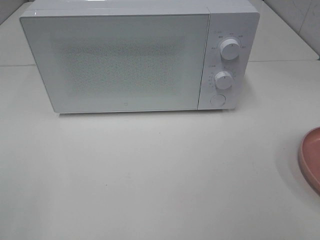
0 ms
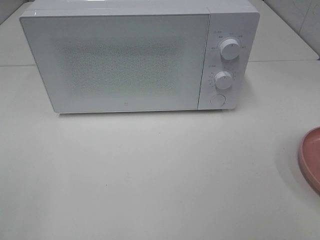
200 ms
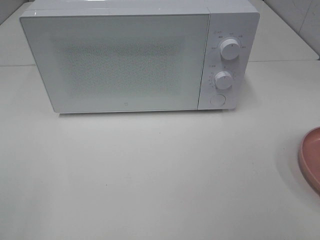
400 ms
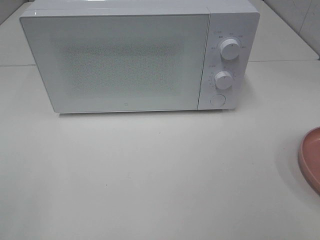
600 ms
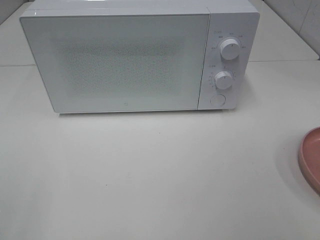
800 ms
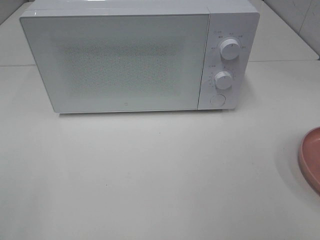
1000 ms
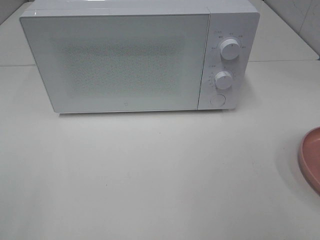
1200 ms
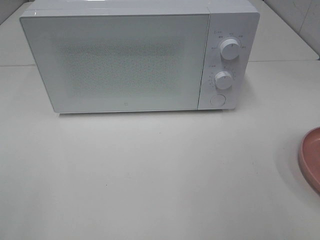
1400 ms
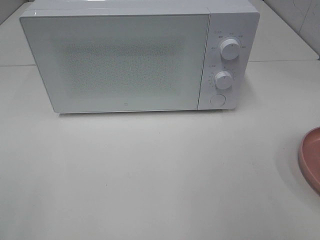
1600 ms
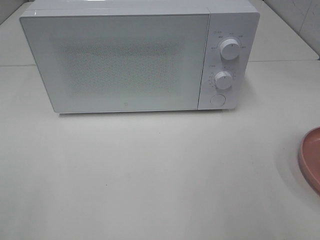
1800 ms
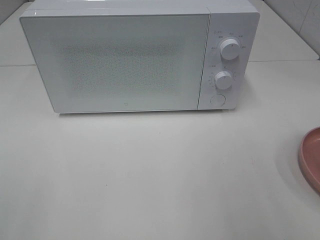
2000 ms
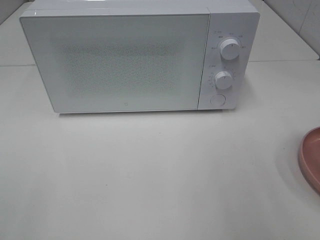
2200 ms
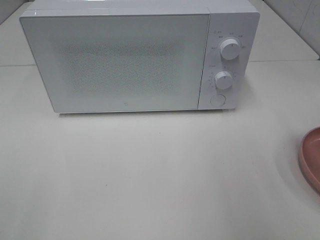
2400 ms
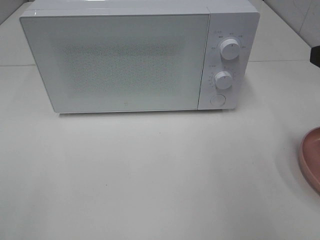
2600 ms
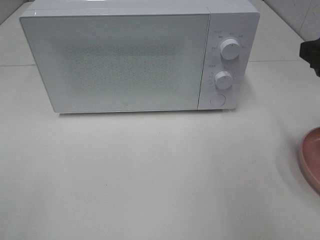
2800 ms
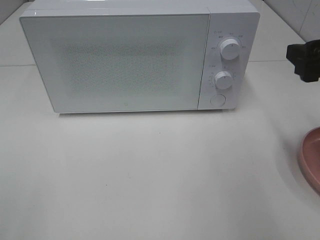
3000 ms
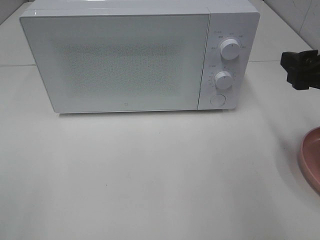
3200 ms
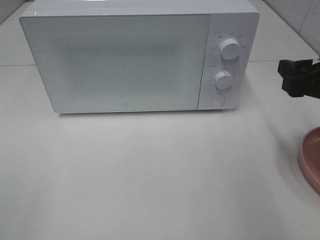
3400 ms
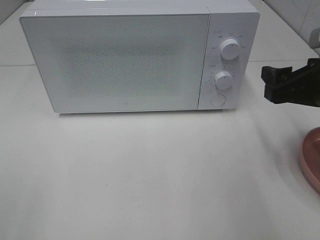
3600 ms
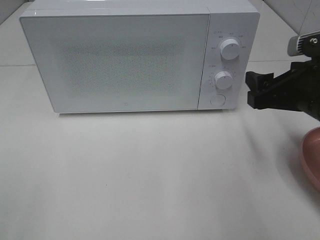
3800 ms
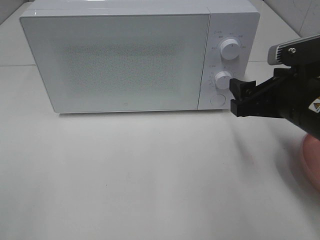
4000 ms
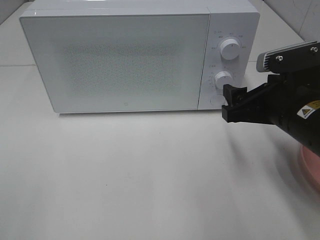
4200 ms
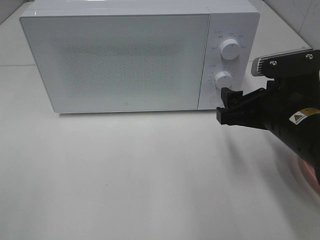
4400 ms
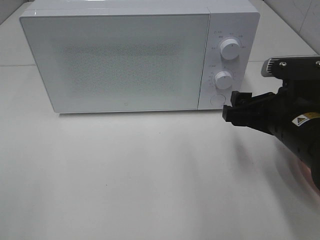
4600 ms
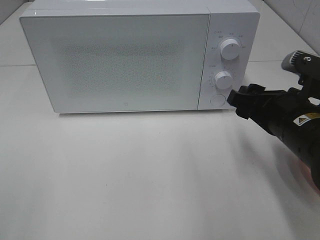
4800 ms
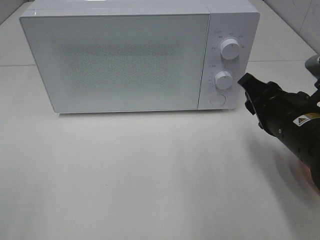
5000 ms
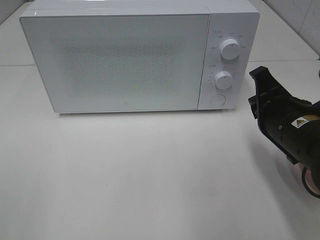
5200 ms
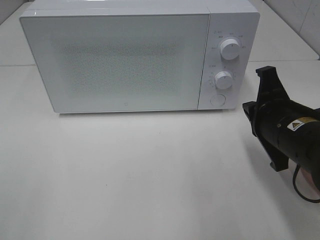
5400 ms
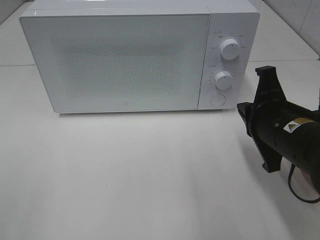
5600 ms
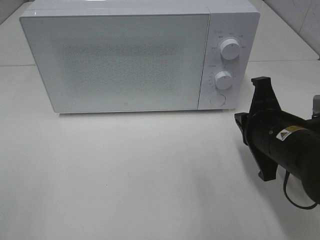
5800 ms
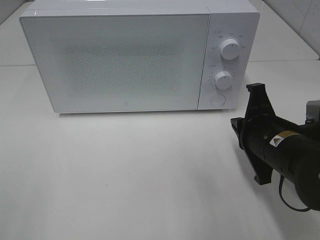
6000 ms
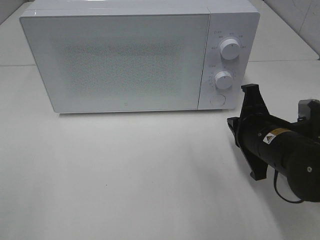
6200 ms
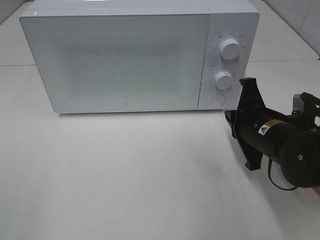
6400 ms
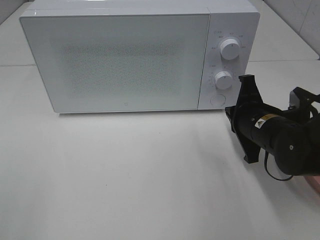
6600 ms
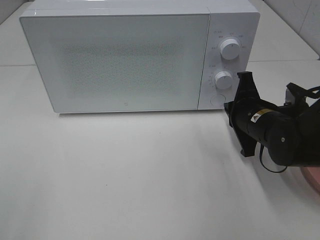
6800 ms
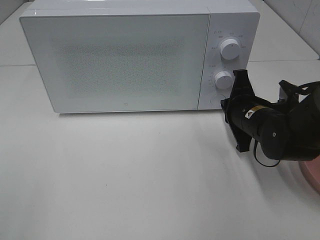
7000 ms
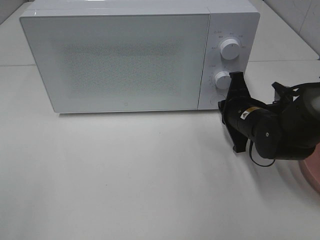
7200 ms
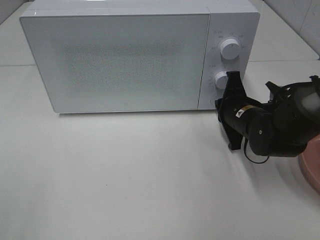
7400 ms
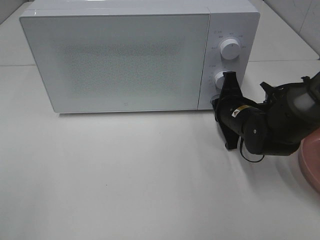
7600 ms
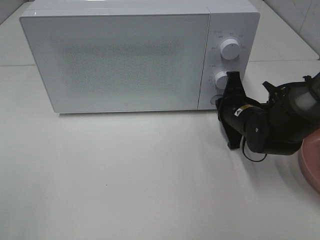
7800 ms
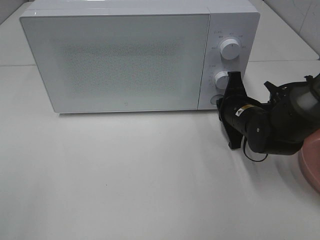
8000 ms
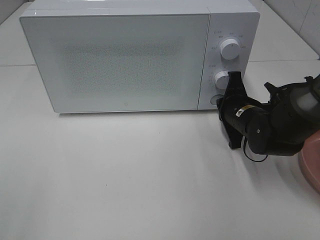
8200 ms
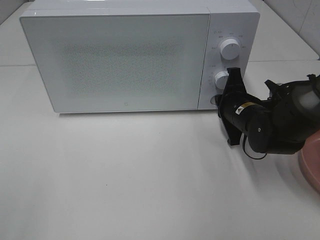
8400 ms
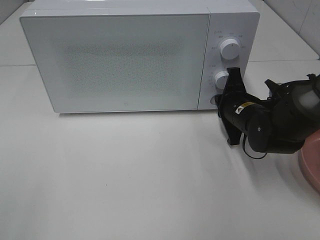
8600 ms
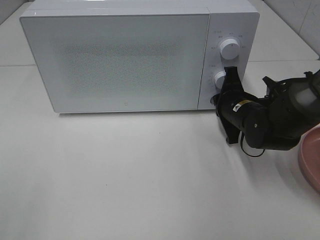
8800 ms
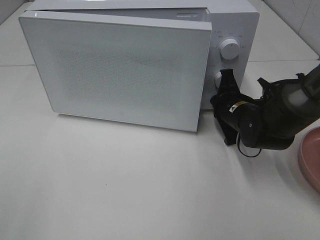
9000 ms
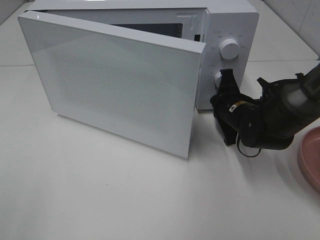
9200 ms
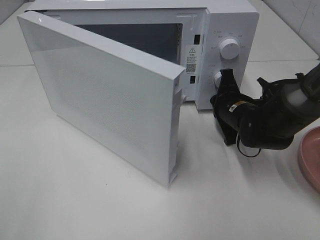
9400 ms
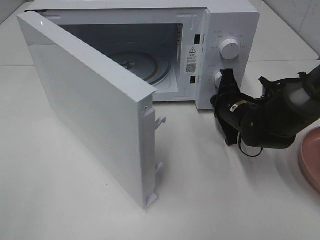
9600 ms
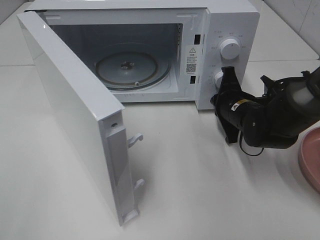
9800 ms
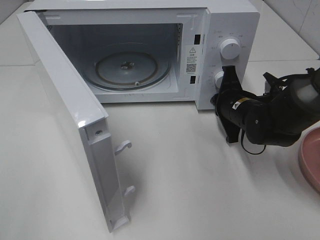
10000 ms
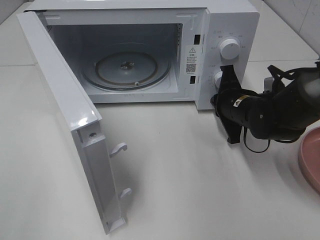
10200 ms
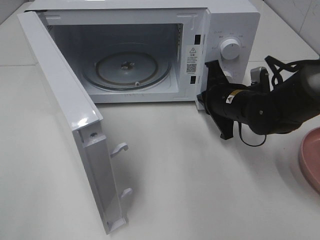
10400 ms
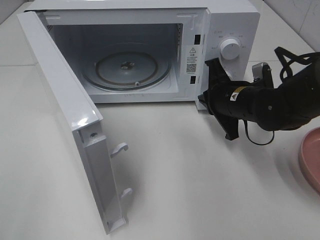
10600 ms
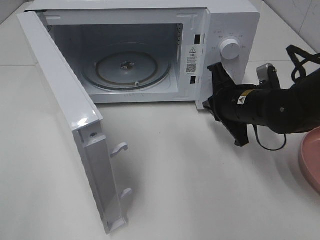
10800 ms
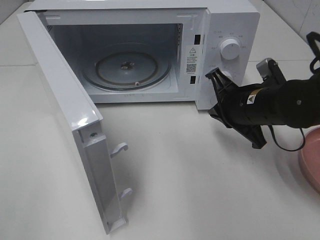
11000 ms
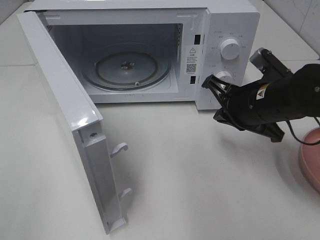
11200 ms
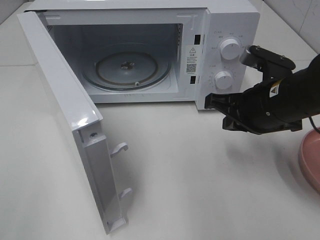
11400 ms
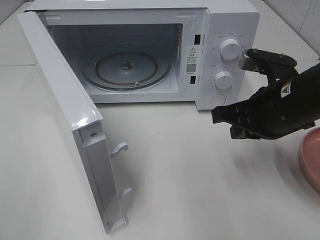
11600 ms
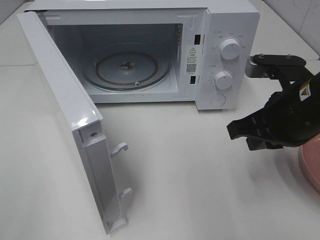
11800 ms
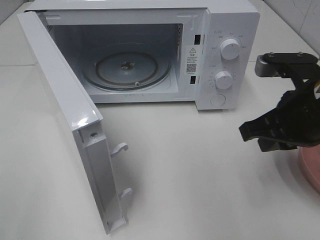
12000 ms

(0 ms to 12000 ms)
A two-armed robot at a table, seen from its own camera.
Task of the whole recording: Heat the burger.
Step, 0 ms - 10200 ms: Right hand: press the switch.
1600 ms - 3000 ms: The right gripper travels forward by approximately 15 cm.
3000 ms - 4400 ms: The right gripper is displaced to the left and downward by about 10 cm.
4400 ms - 6000 ms: The right gripper closes its fingers.
6000 ms - 7600 ms: The right gripper goes approximately 15 cm forward and downward.
7600 ms - 9000 ms: The grippers stay close to where they were, moving slightly.
10400 ms - 12000 ms: The right gripper goes roughly 15 cm backward, upward and to the right.

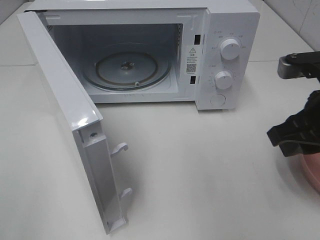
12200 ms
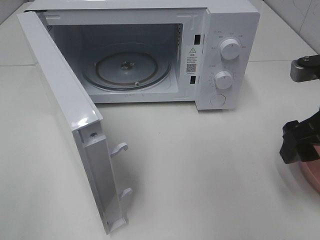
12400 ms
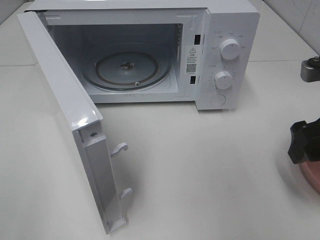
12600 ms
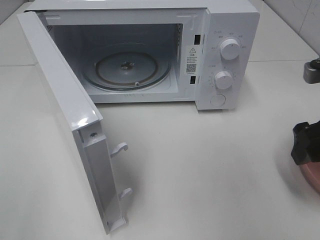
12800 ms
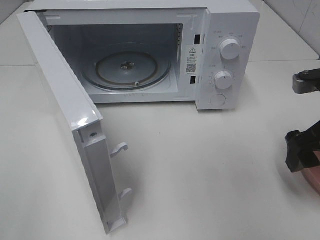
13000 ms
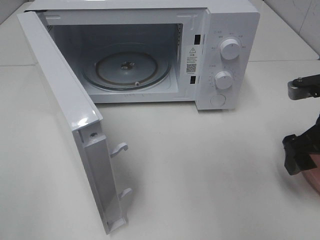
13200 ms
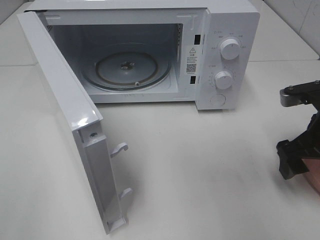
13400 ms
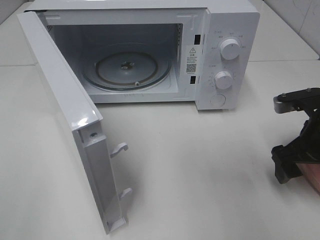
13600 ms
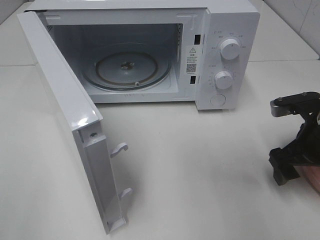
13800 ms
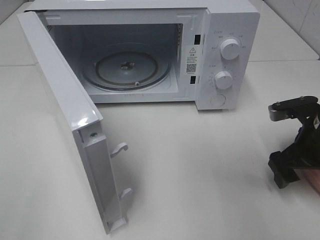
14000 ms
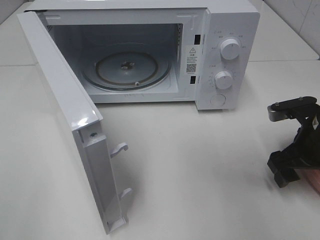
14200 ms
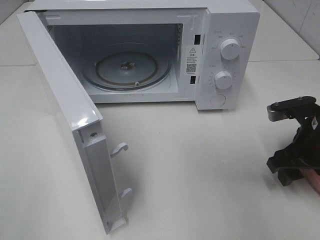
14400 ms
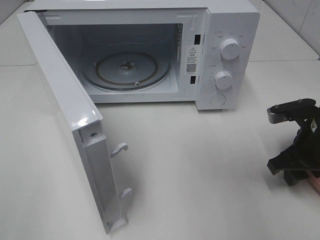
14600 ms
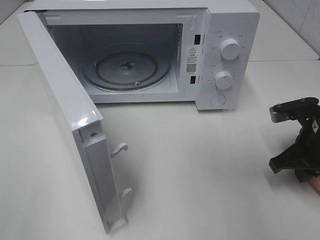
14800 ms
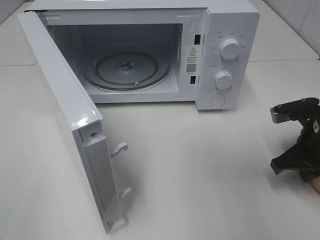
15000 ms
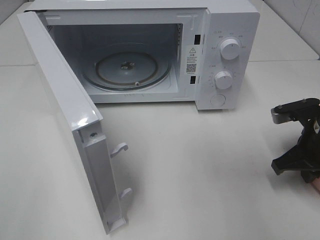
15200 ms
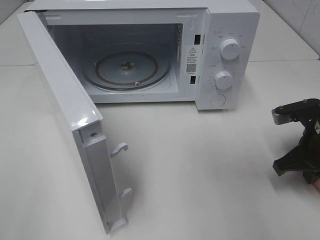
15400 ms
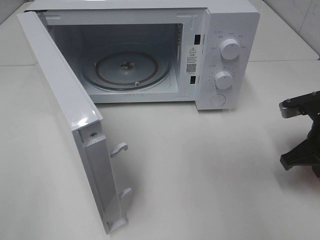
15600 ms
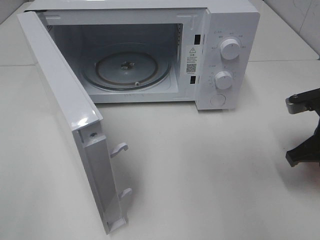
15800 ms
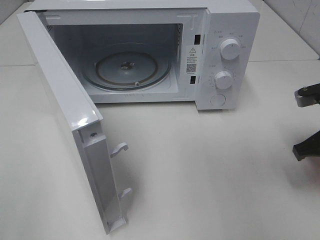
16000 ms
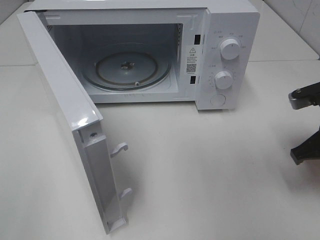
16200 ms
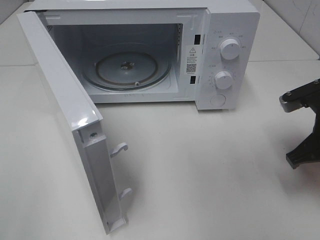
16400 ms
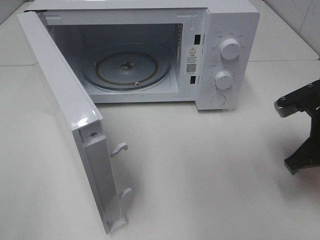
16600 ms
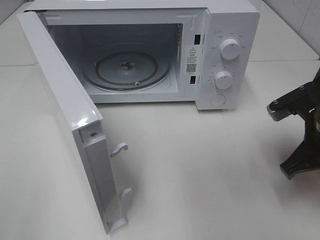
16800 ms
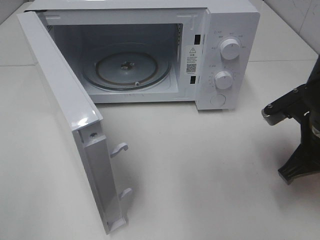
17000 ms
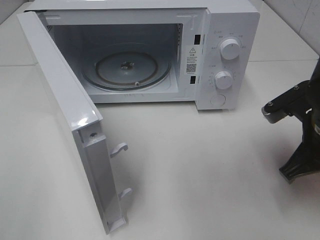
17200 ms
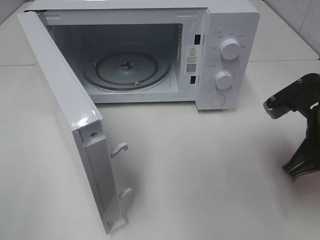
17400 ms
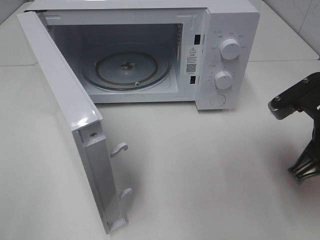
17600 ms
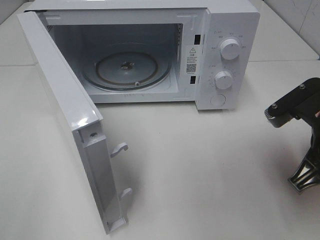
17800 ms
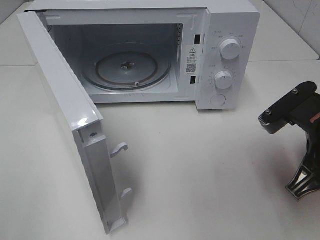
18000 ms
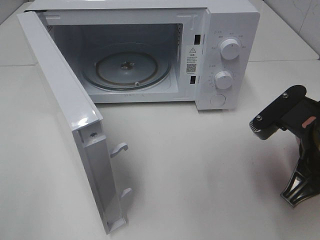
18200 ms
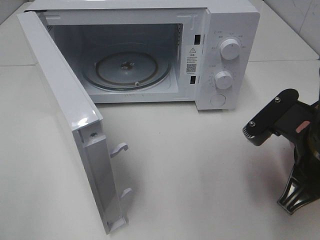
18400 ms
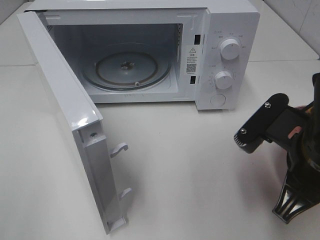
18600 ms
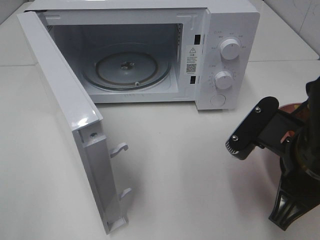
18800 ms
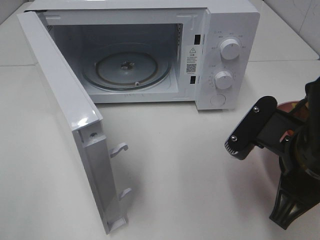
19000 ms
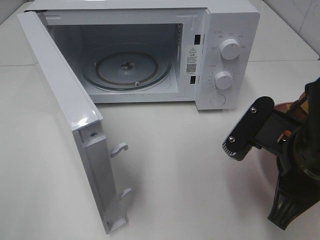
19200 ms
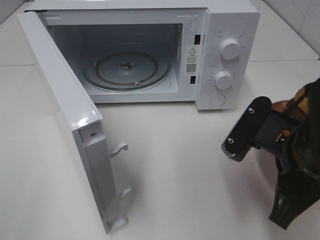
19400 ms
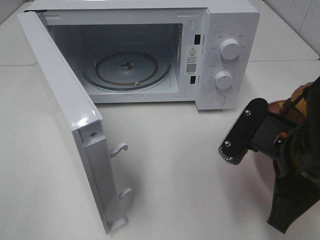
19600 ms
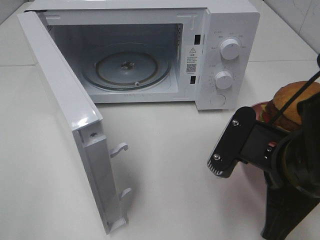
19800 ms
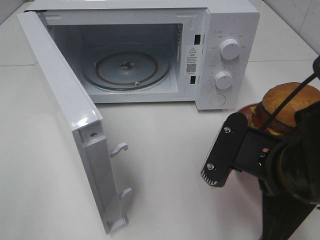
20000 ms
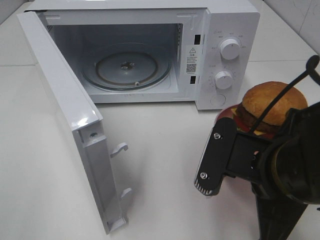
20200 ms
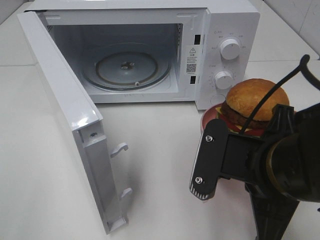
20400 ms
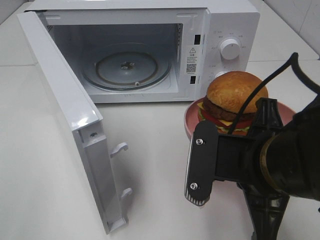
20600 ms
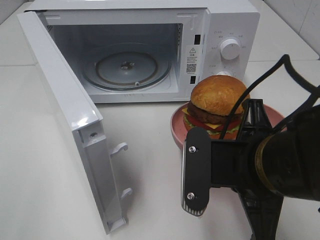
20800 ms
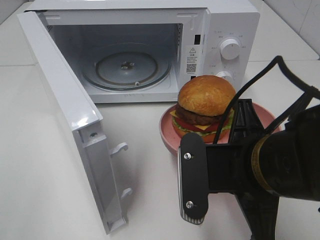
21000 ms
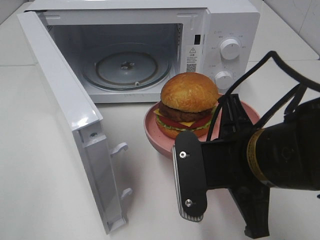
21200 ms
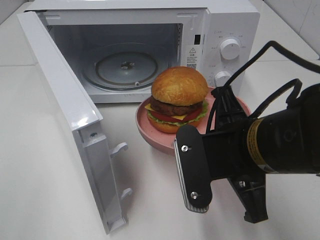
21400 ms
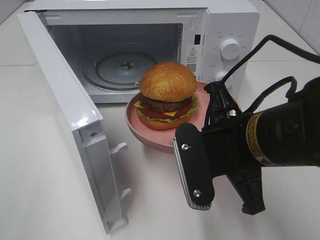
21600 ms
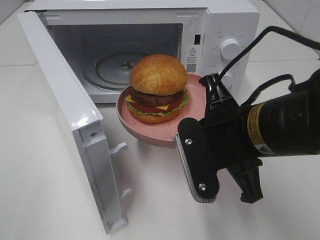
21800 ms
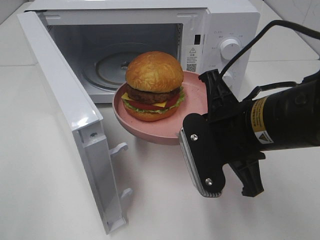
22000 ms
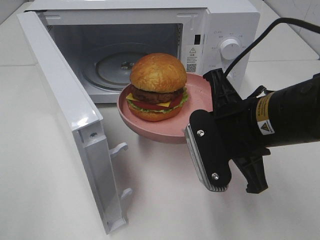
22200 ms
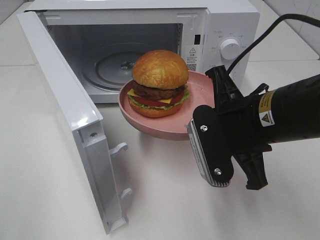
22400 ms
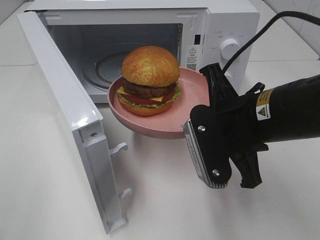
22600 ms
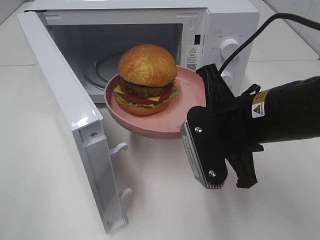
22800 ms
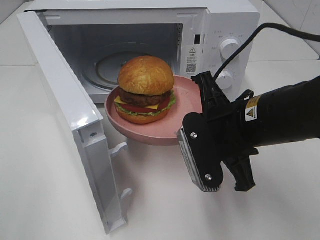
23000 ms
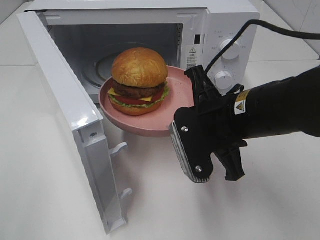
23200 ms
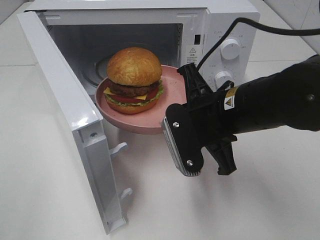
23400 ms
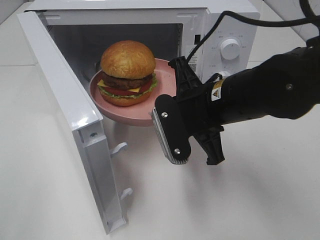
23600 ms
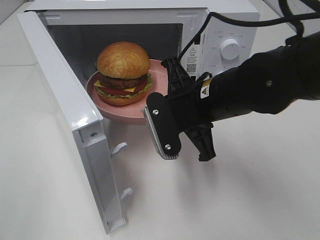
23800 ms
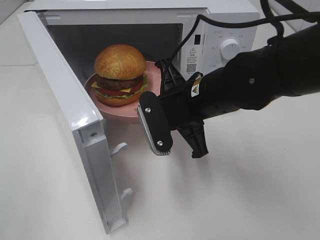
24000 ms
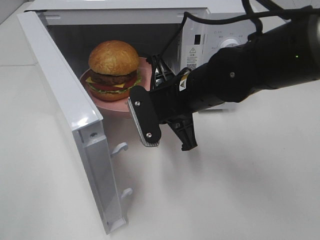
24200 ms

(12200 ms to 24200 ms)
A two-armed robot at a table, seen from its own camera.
Task of the whole recording: Heat the burger.
Step, 12200 ms - 15200 ms: Right hand: grab the plate with the hamburger.
12200 ms - 13800 ms: The right gripper moves downward, approximately 10 cm, and opens up.
13800 ms - 15200 ms: The right gripper closes its fingers.
15200 ms - 16600 ms: The right gripper changes place by some 5 cm.
16600 ms - 18200 ms: The right gripper goes some 10 cm backward and to the left.
18200 ms - 19800 ms: The right gripper shifts about 5 cm to the left.
21200 ms - 22600 ms: The right gripper heads forward, covering roughly 5 cm.
22600 ms - 24200 ms: The right gripper travels forward and to the left by about 10 cm.
